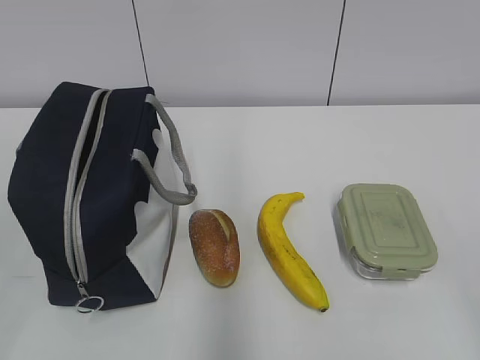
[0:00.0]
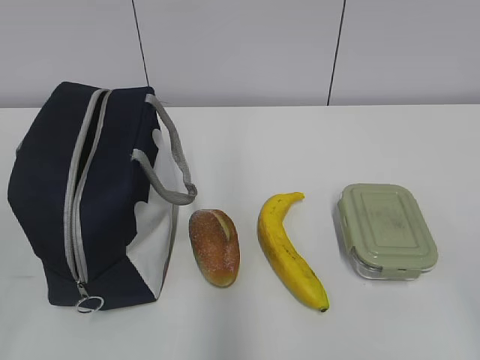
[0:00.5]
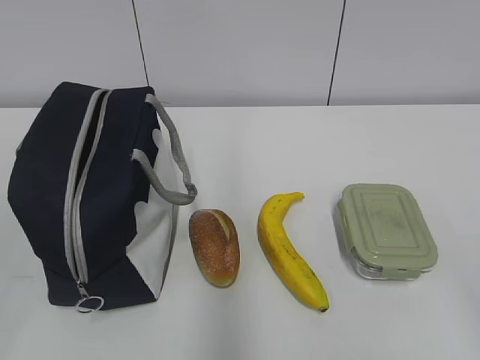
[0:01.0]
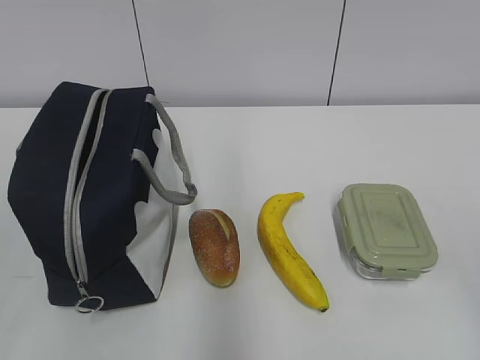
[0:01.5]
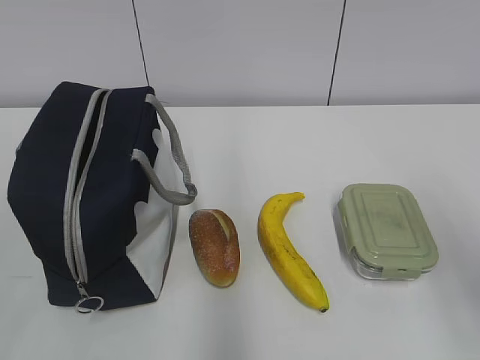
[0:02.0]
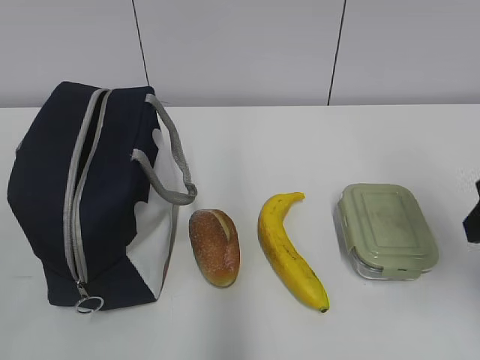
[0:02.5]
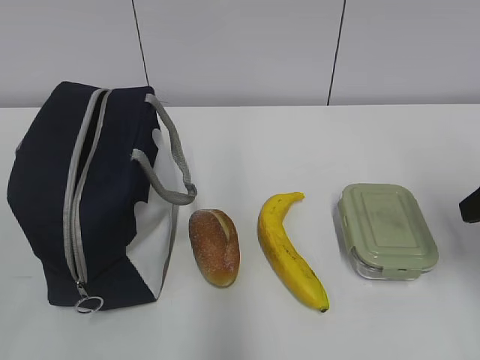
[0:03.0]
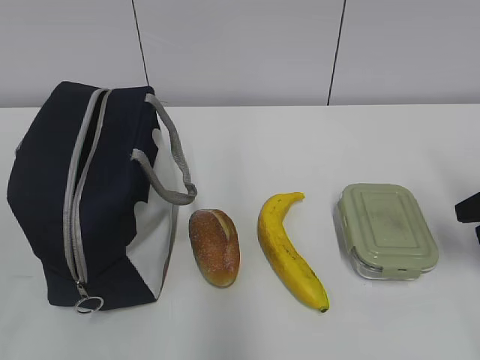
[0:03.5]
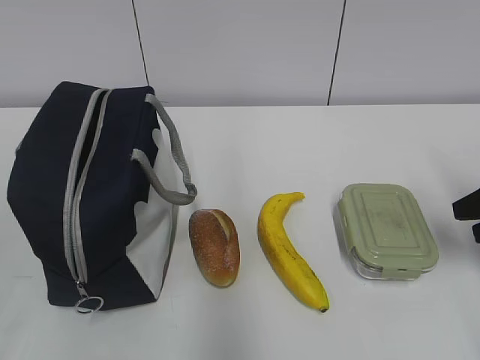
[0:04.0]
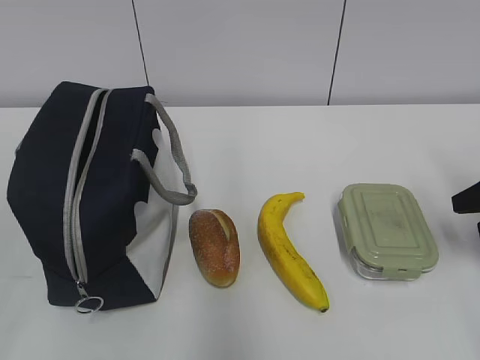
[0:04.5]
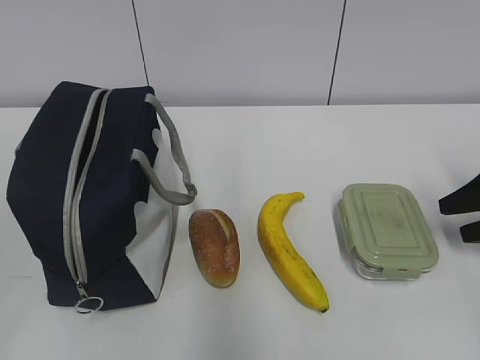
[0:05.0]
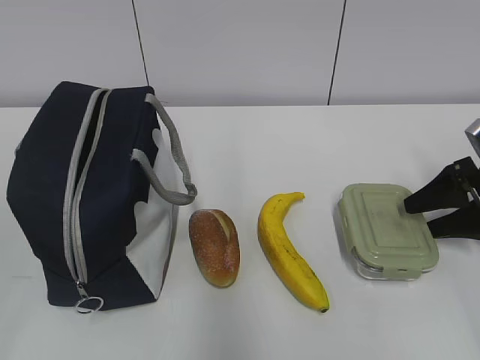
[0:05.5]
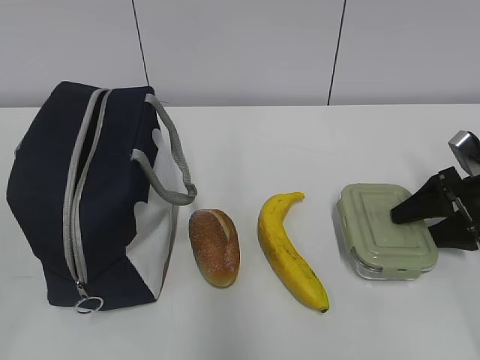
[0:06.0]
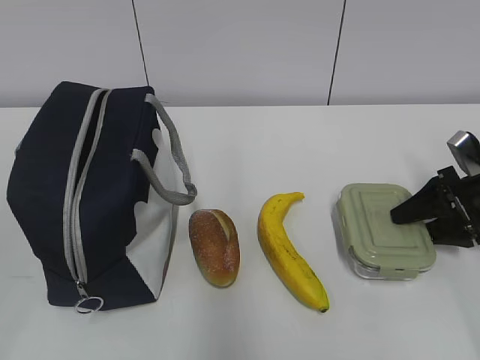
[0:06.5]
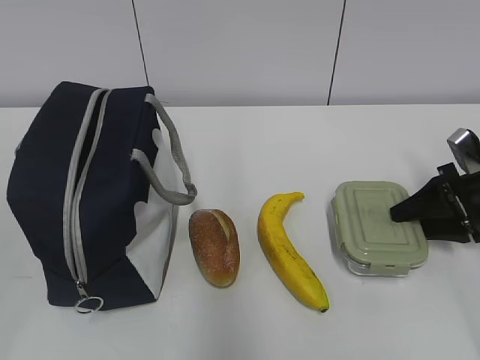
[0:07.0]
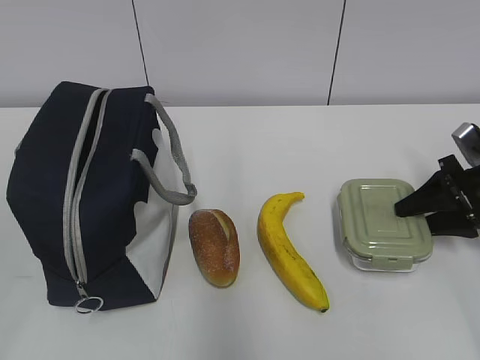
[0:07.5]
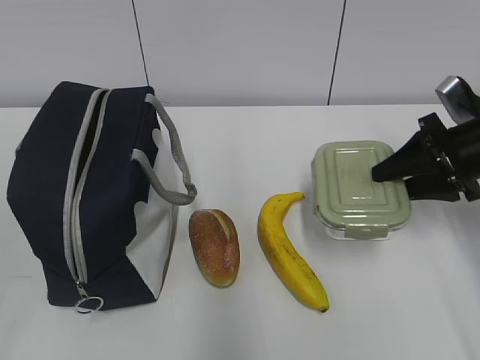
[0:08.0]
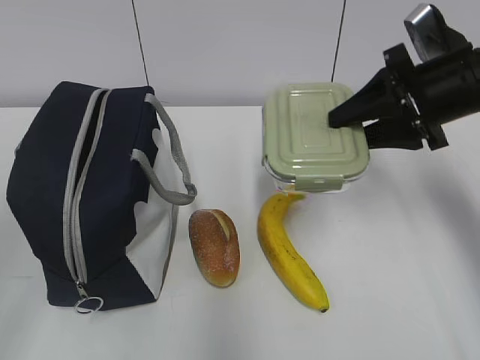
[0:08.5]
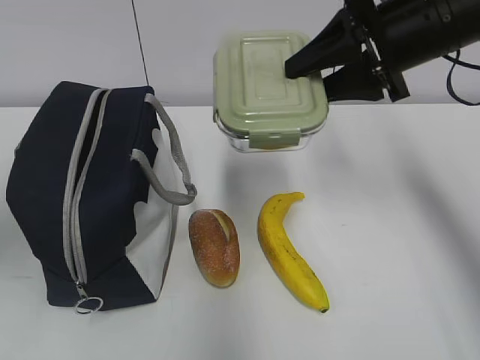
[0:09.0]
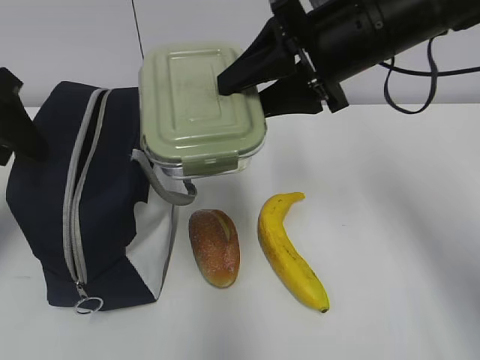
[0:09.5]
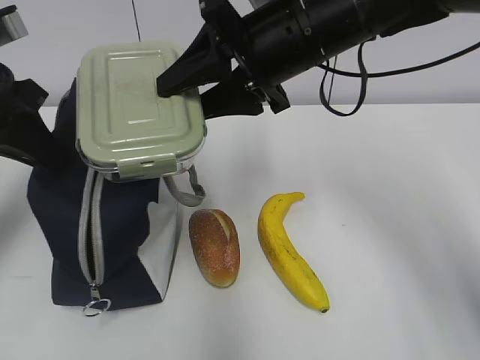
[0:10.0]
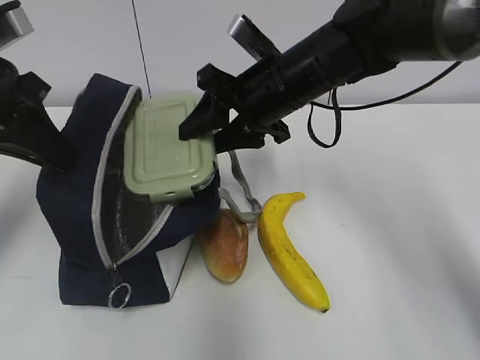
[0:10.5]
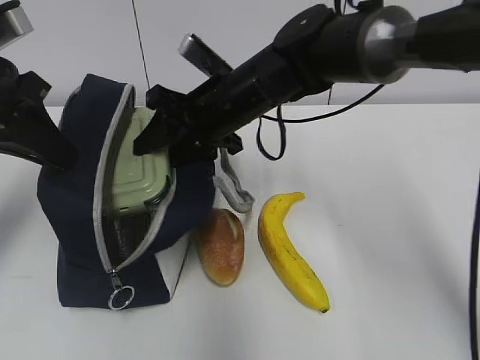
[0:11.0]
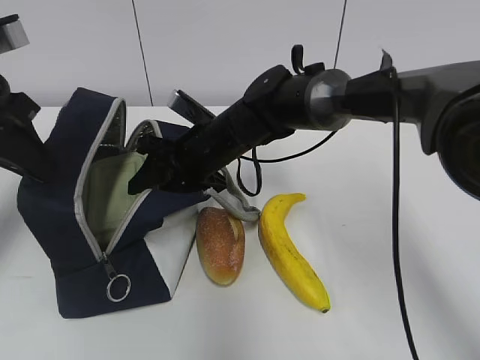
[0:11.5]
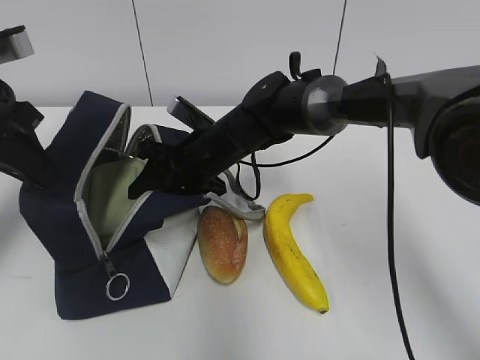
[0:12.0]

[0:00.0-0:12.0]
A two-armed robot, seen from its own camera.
Step, 0:00.0 to 0:07.0: Grab the lunch box with your right hand.
Step, 0:07.5 to 0:10.5: Grab the lunch bag with your left hand.
0:02.0 to 0:04.0: The right gripper travels forward, downward and to the right by about 20 cm.
0:04.0 to 0:06.0: The right gripper shifts approximately 10 cm forward and downward.
0:06.0 to 0:08.0: The right gripper shifts some 10 cm upward.
0:08.0 to 0:10.0: The left gripper is displaced forward by roughly 30 cm, and closes its fingers. Meanwhile the right gripper moves to the left and upward, roughly 25 cm.
0:10.0 to 0:12.0: The right gripper shifts about 20 cm downward, to the left and forward.

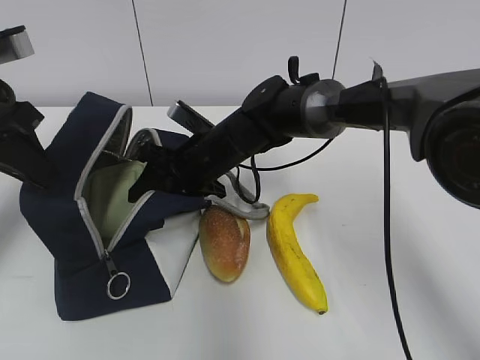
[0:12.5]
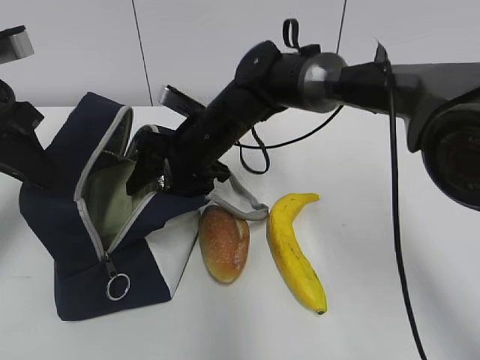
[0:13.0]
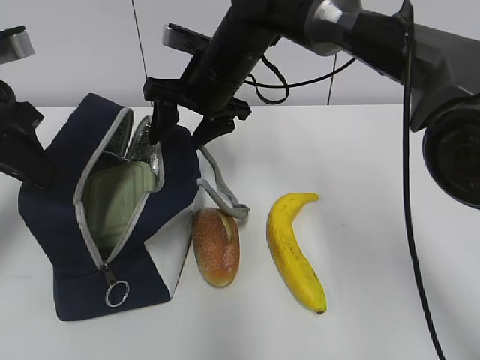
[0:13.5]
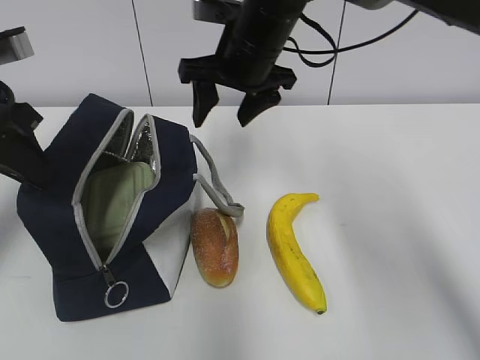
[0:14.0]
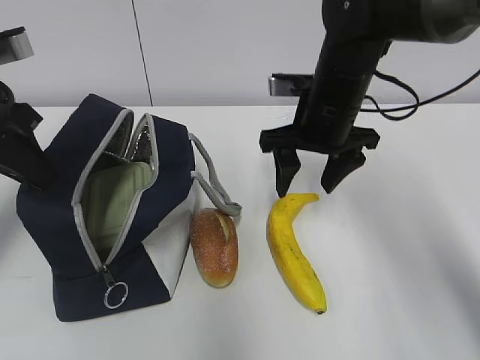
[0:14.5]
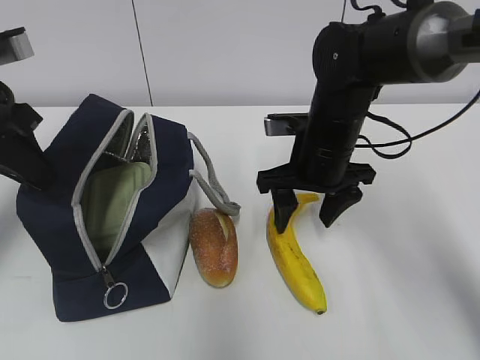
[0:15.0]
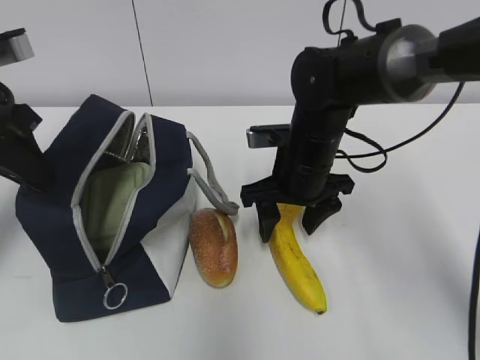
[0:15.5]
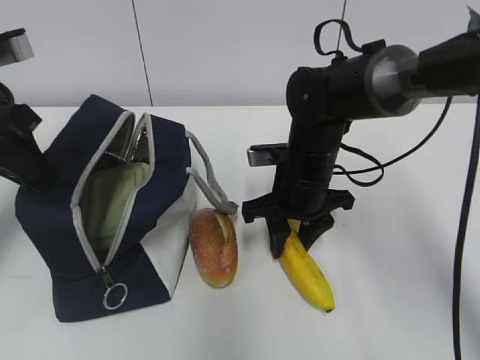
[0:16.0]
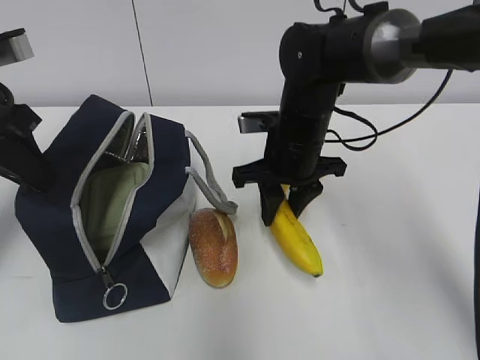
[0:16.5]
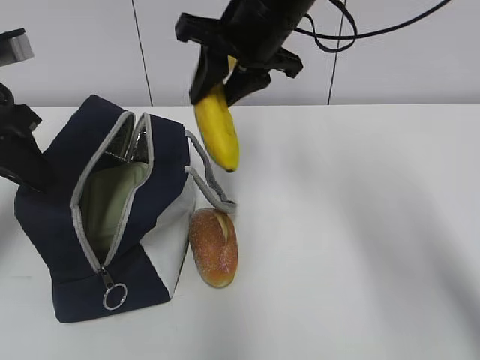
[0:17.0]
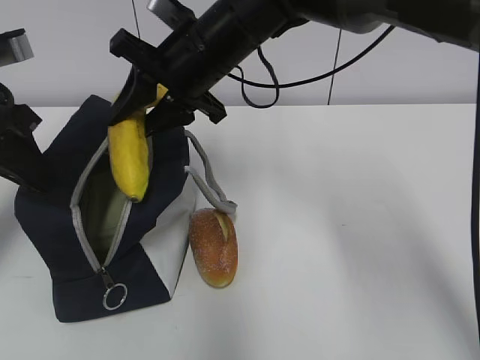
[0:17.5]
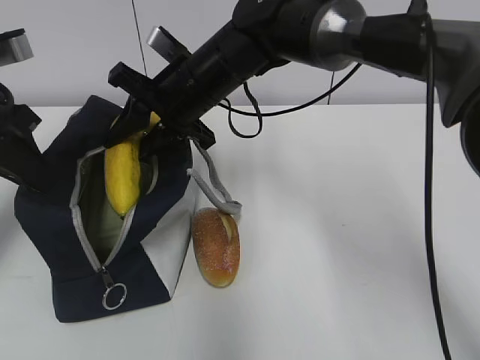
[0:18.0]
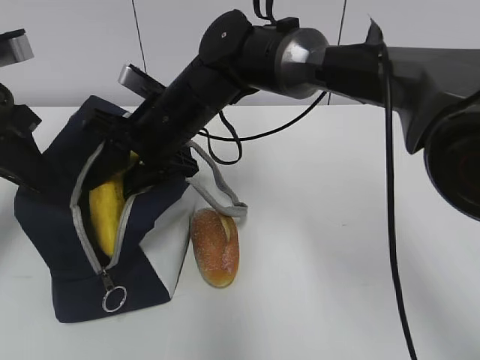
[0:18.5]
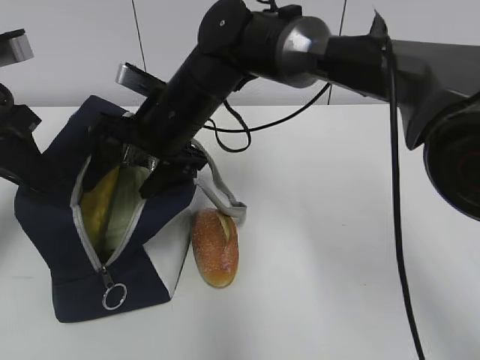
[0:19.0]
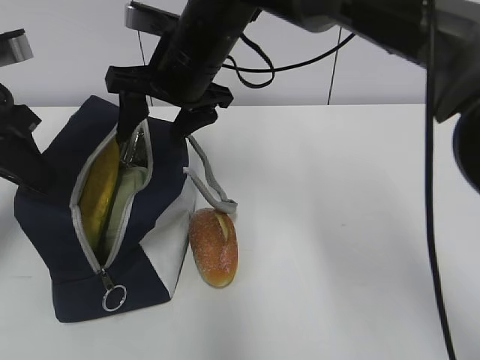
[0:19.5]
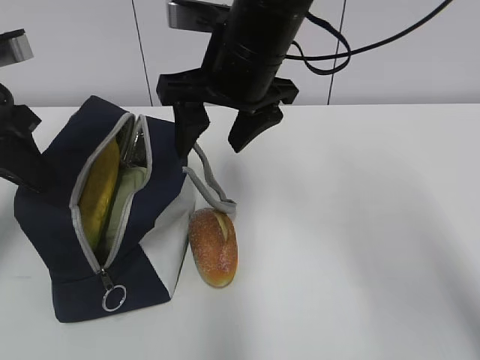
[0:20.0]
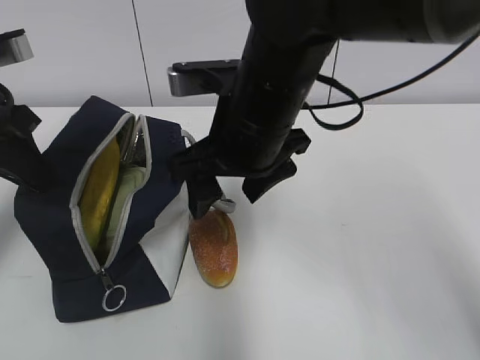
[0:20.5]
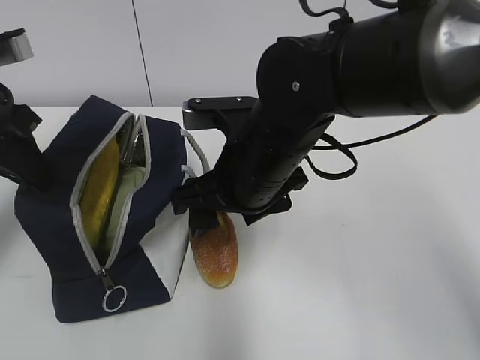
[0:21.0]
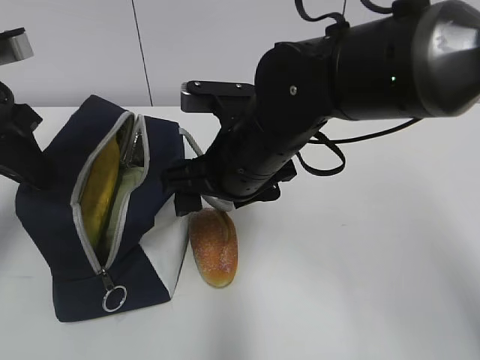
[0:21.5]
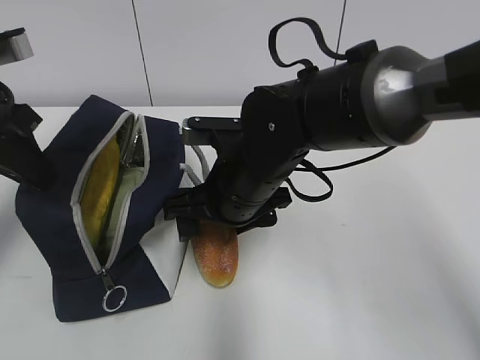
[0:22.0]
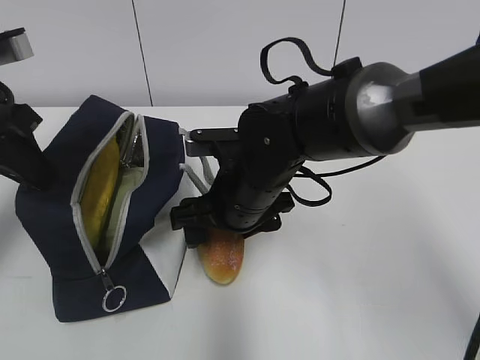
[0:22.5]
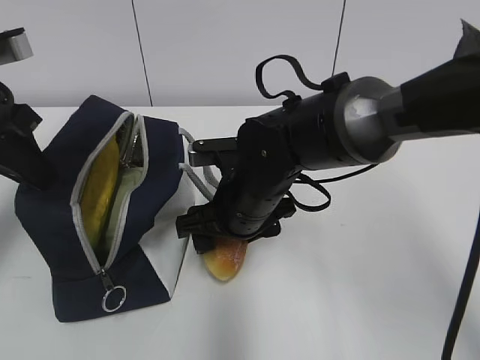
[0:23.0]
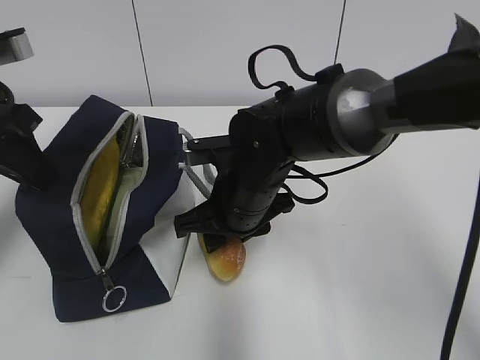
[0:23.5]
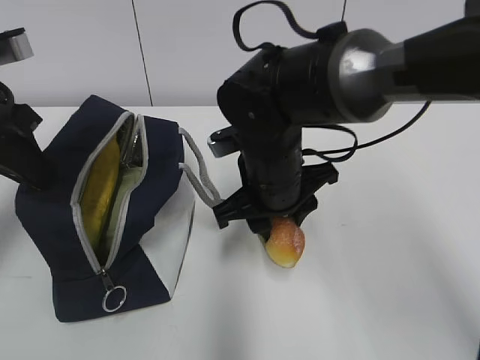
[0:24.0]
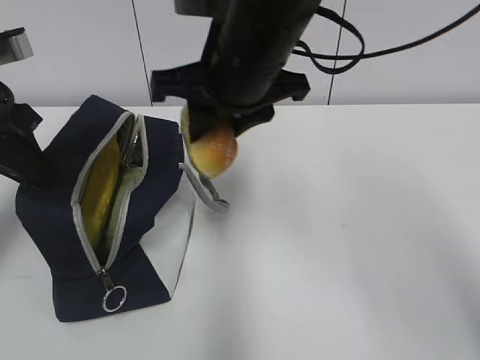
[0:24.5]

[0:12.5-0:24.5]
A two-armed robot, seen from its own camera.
Step, 0:13.5 to 0:16.0: Grab the banana with your right hand.
Step, 0:16.5 to 0:18.5: Place it into the bag with your right hand.
Step, 0:19.5 to 0:23.5: Grab the bread with your right hand.
0:12.5 to 0:14.5: The right gripper moves to the right and upward, about 15 cm.
0:14.5 to 0:16.5: The right gripper closes its fingers.
0:16.5 to 0:18.5: The right gripper shifts approximately 15 cm to the left, and moves about 15 cm upward and comes back.
0:18.5 to 0:20.5: The right gripper travels backward, to the right and upward by about 15 cm, and opens.
0:20.5 to 0:22.5: The right gripper travels downward by approximately 10 cm.
0:22.5 to 0:24.5: The right gripper is displaced upward by about 15 cm, and closes its fingers.

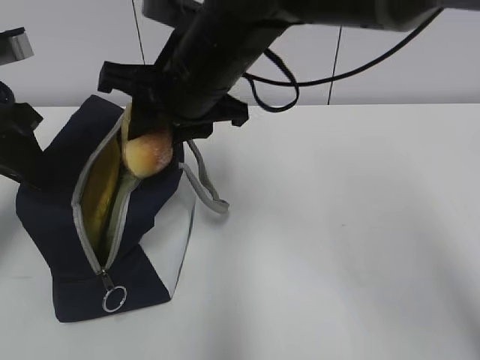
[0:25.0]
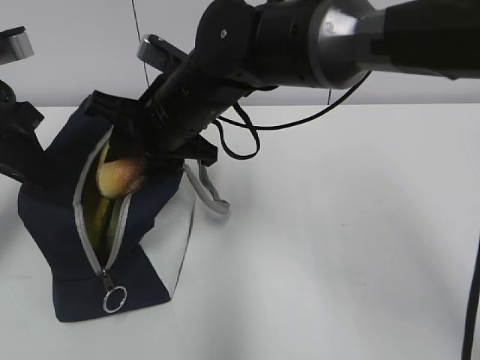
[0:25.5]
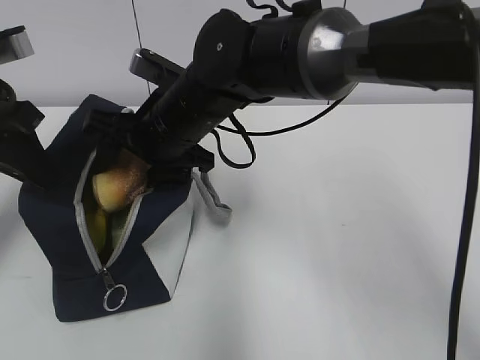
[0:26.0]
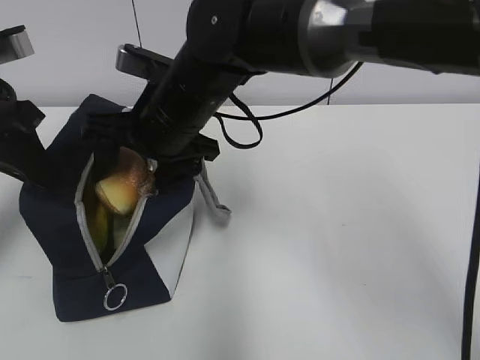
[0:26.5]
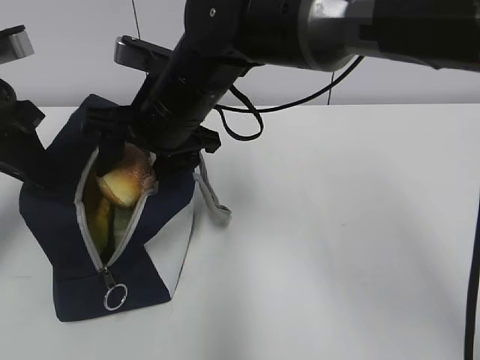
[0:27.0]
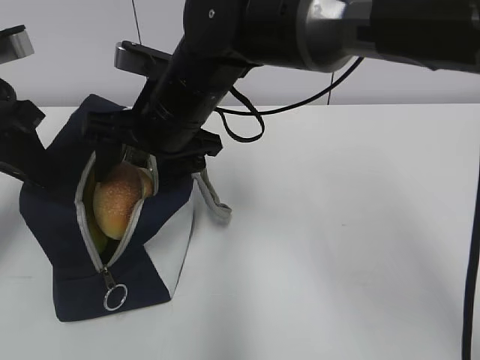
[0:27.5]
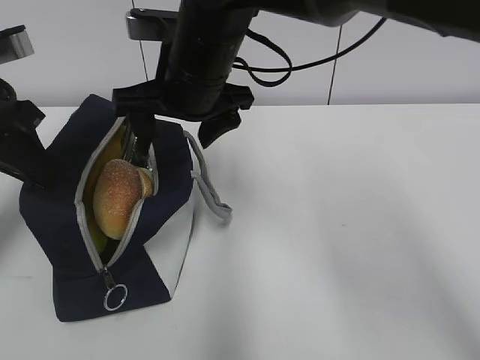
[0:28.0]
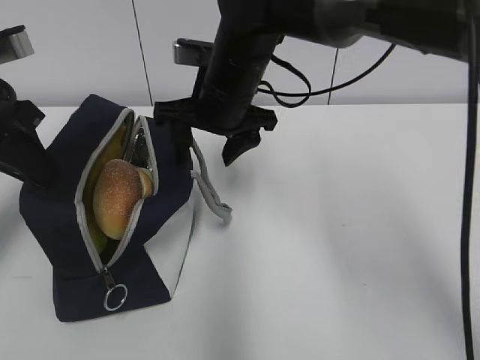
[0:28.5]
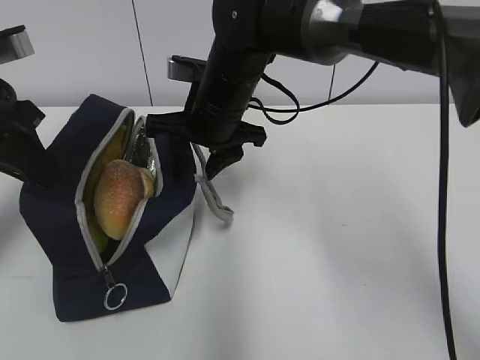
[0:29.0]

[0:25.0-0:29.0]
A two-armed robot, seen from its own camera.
0:25.0 to 0:27.0: The right gripper moves roughly 5 cm, and opens its fingers.
0:27.0 to 0:29.0: The right gripper ends up roughly 5 cm from where it was.
